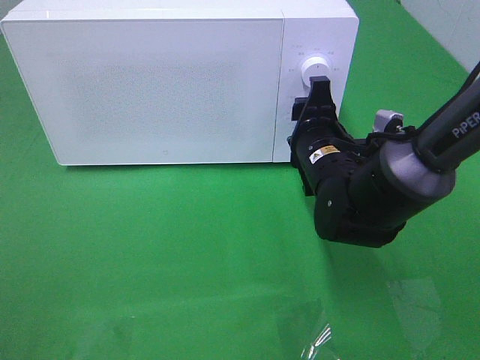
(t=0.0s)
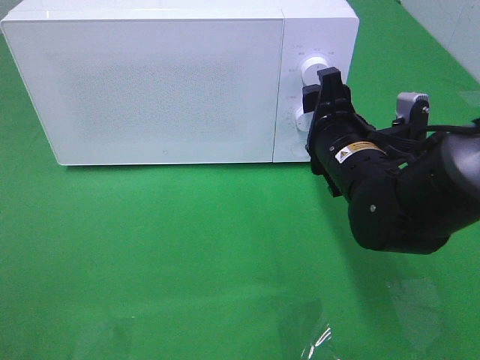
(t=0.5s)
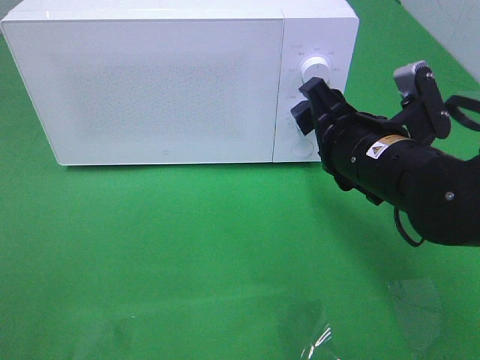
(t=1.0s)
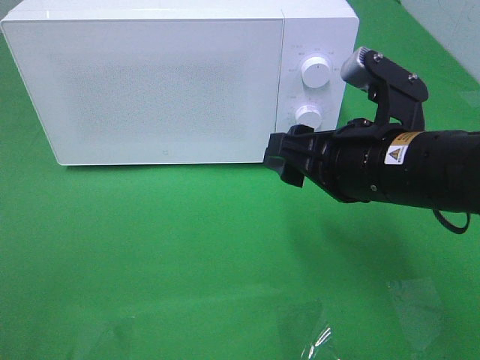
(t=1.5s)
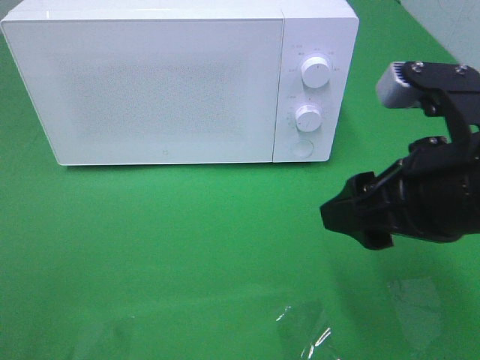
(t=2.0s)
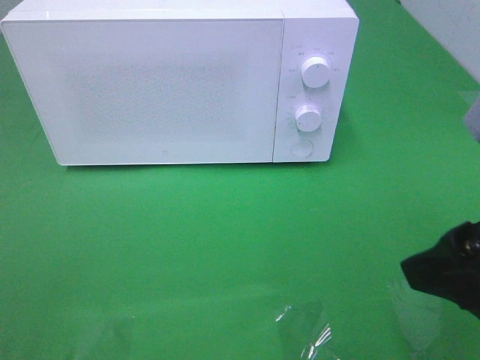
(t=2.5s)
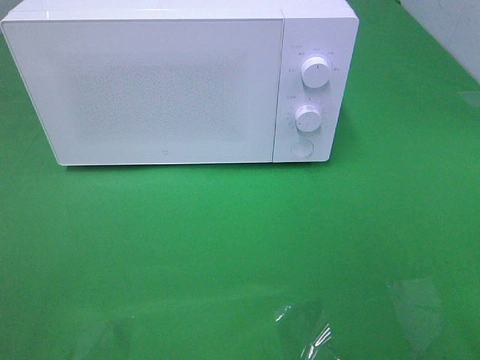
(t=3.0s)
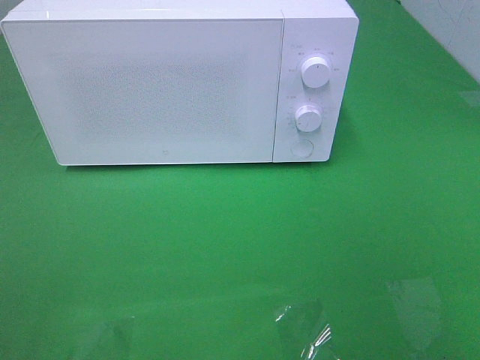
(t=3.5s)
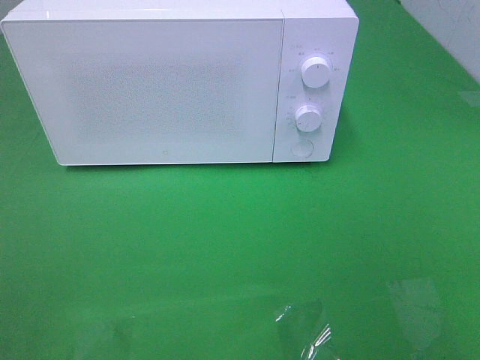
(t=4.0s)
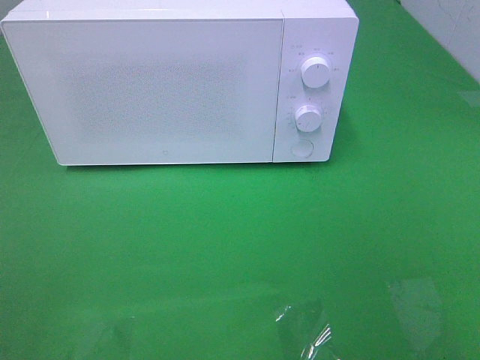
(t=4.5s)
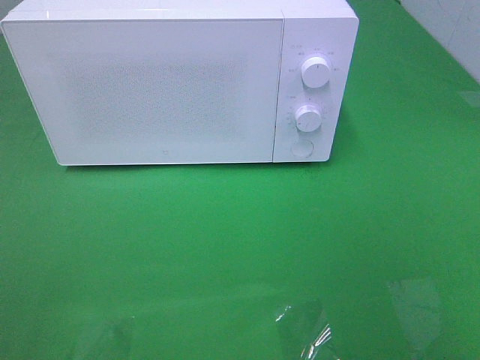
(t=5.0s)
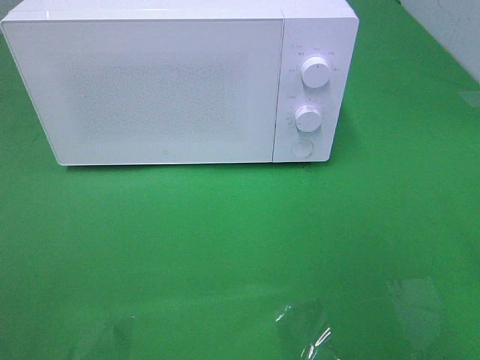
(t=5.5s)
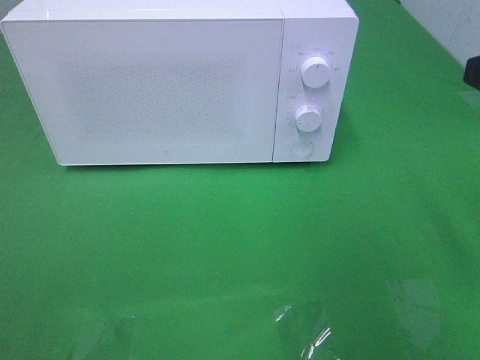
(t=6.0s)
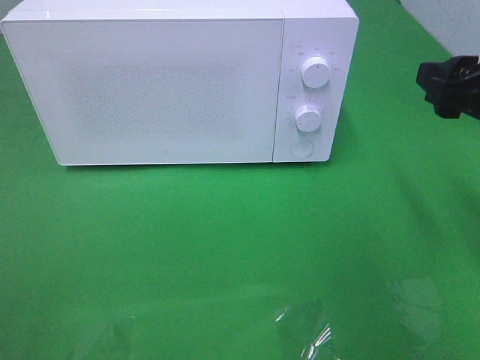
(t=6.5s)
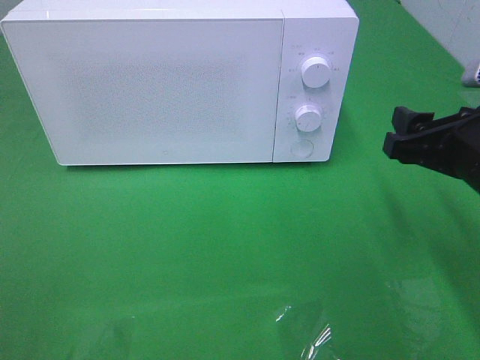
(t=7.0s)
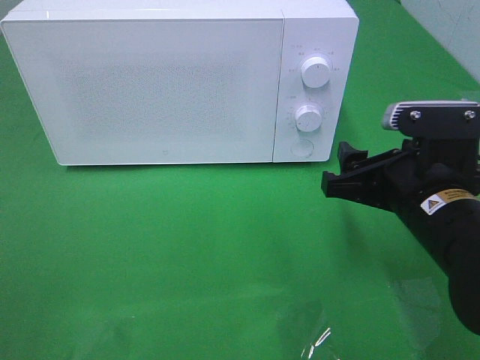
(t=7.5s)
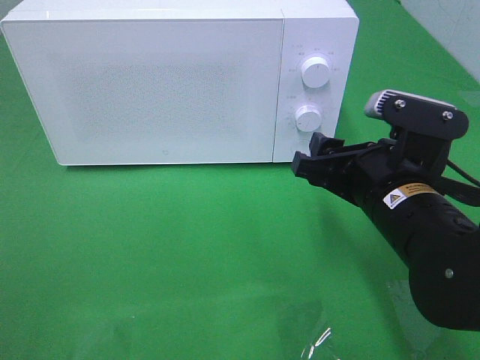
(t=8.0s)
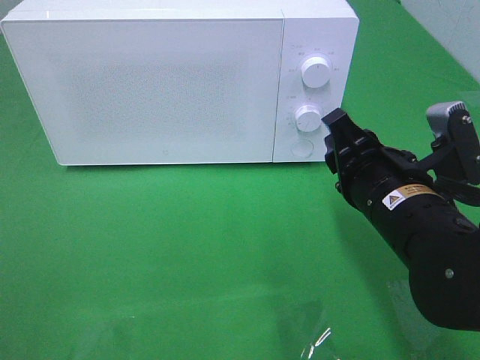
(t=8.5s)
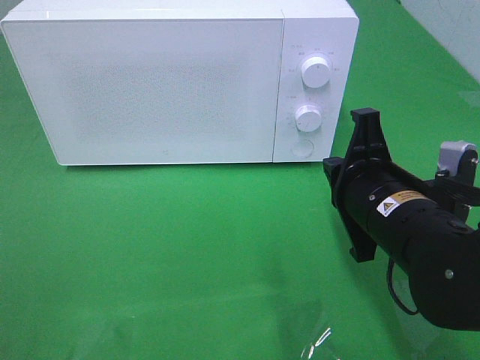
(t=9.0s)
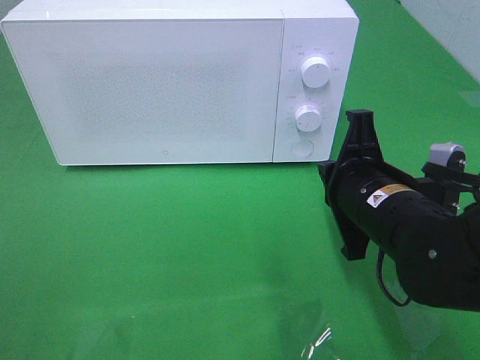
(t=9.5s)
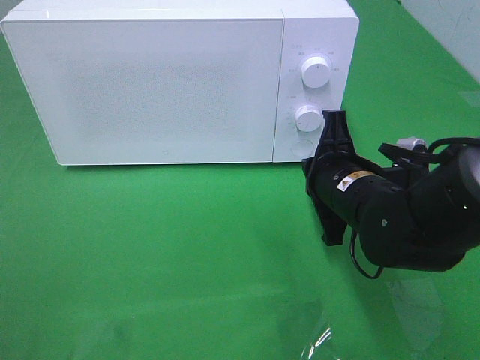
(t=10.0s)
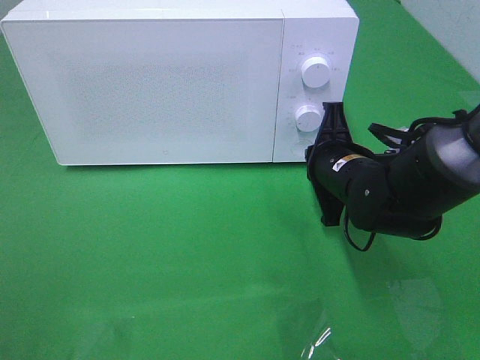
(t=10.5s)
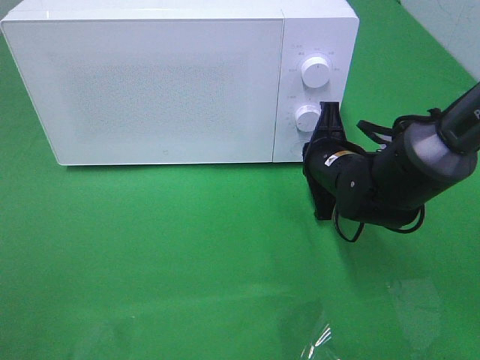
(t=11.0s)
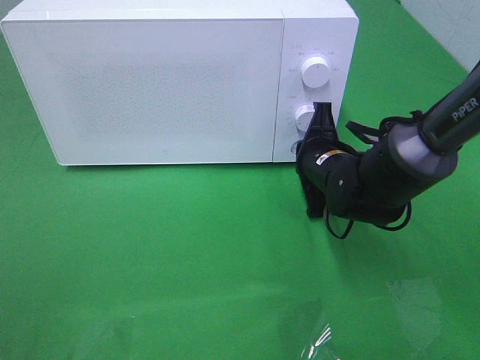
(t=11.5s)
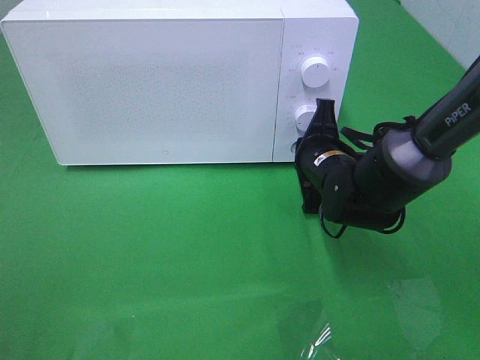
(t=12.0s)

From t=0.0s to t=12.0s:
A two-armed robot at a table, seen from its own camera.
Task of the whole recording: Heat the burger.
From t=0.0s to t=2.0s: The right gripper is displaced backward and upward by some 20 cm.
From t=2.0s to t=4.0s: The right gripper travels backward and to the right by about 20 cm.
From t=6.0s to t=8.0s: The right gripper goes roughly 20 cm downward and to the left.
From t=8.0s to t=10.0s: The right gripper moves forward, approximately 5 cm, and closes.
From t=10.0s to t=12.0s: The right gripper shifts roughly 5 cm forward.

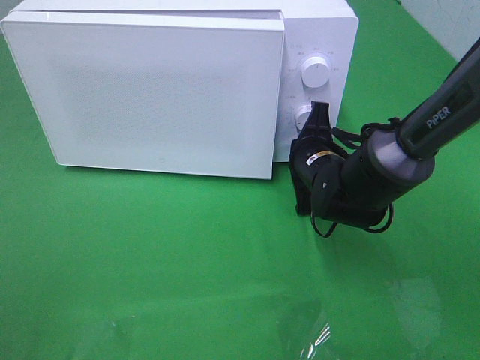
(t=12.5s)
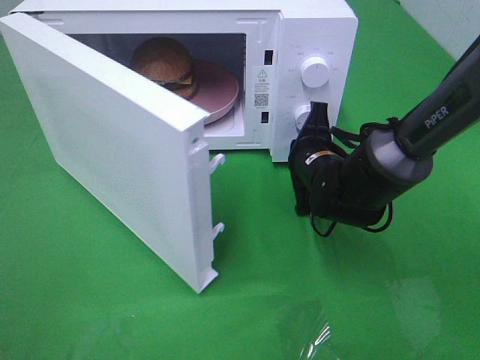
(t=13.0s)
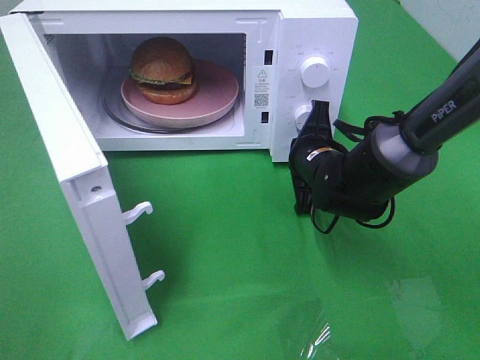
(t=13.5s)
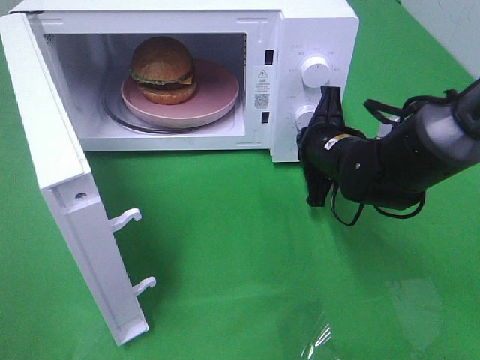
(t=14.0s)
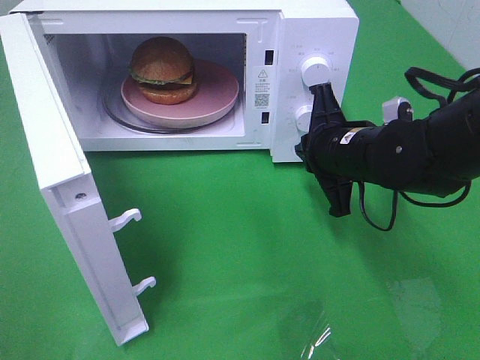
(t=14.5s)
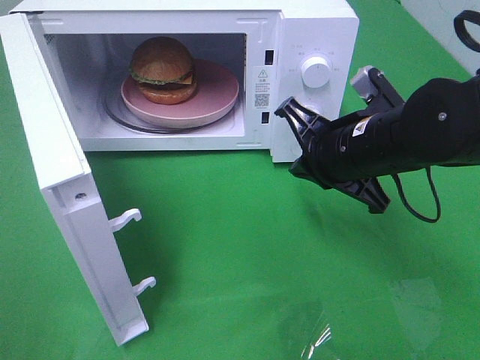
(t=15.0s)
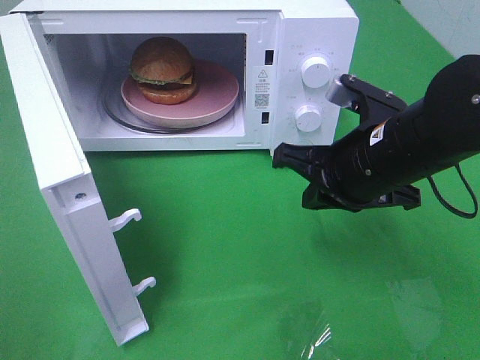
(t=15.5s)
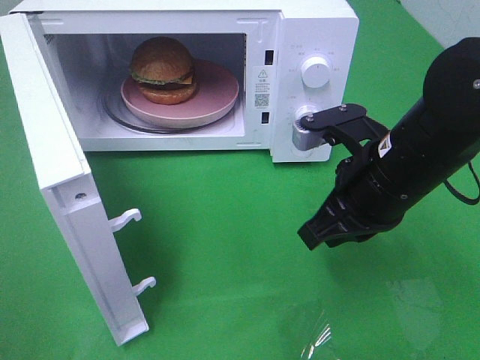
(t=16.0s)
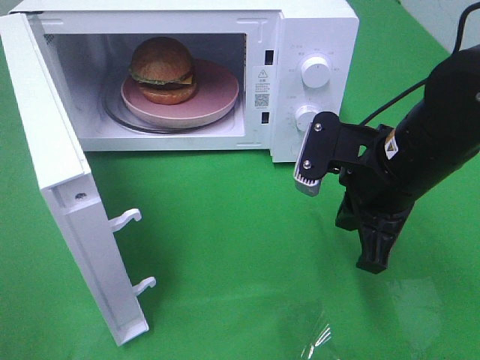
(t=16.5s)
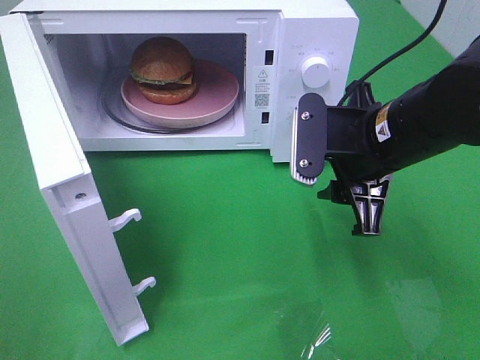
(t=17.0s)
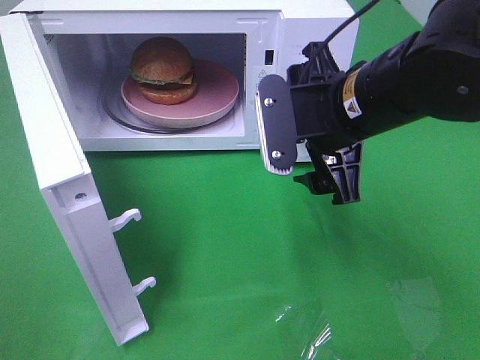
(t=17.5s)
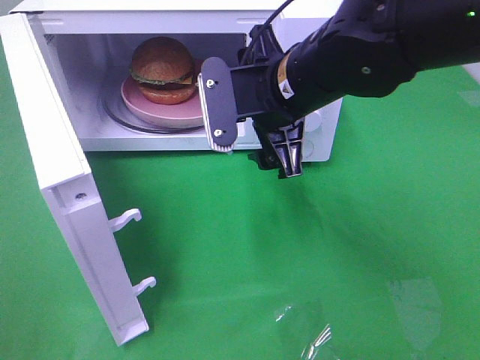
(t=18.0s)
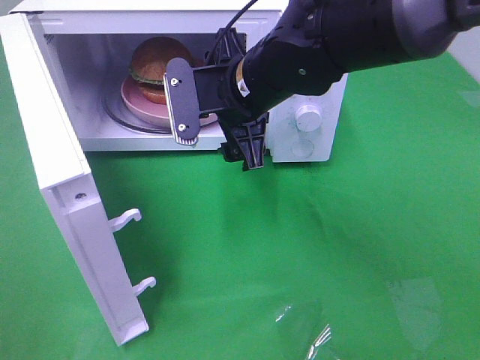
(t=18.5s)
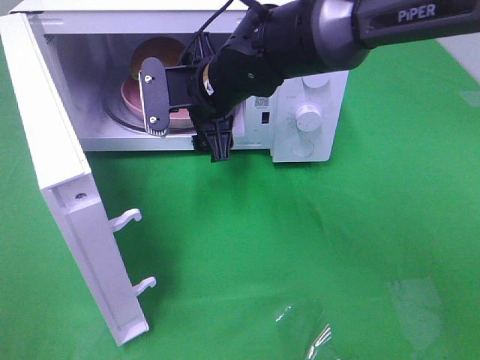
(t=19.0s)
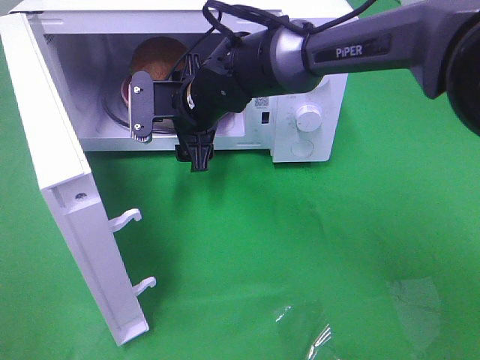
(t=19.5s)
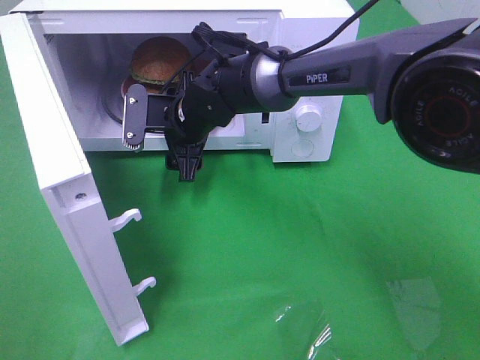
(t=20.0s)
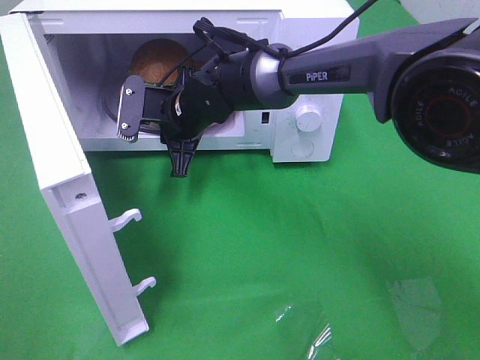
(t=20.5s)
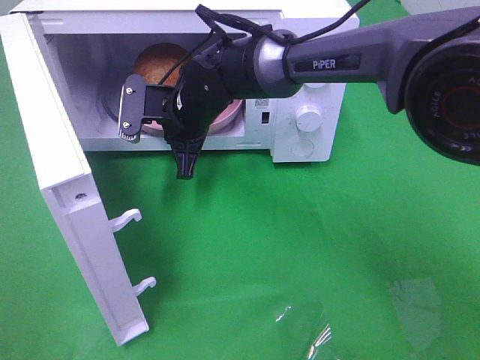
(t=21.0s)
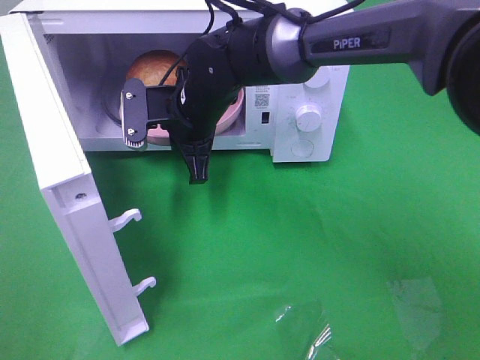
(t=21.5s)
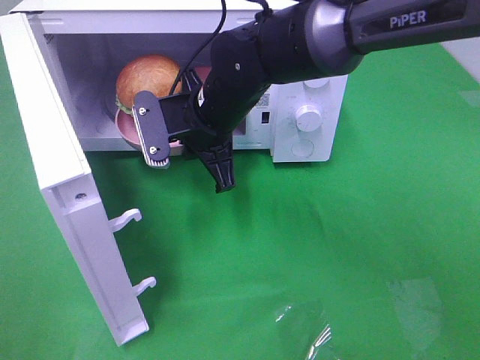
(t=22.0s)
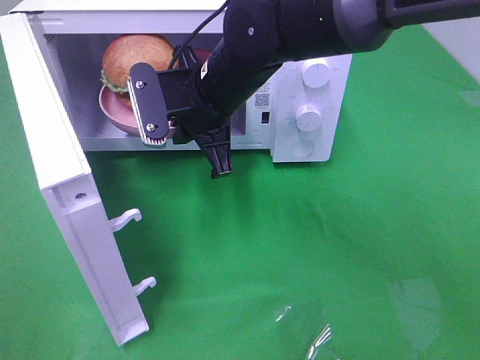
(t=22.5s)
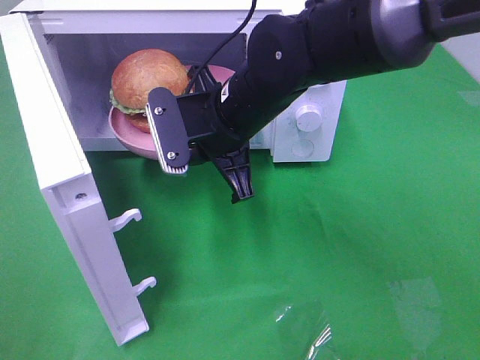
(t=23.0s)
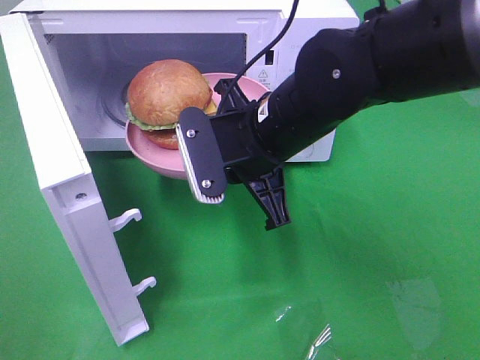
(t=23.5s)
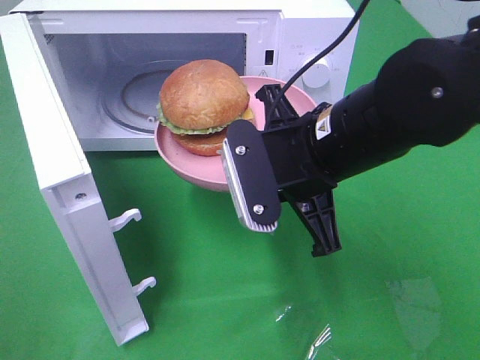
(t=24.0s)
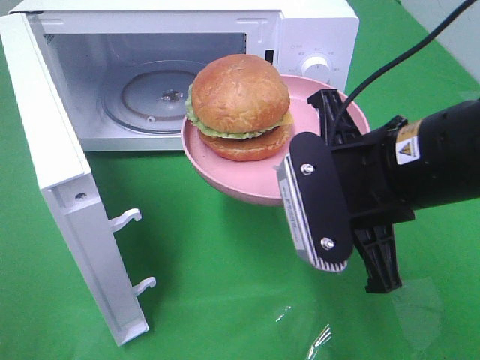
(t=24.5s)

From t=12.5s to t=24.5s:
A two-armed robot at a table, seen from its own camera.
Task of the whole recording: Heat the burger.
Step, from t=14.5s to t=20.5s: Right hand: grab the plate with the hamburger.
From t=12.5s to t=14.5s: The right gripper shifts about 5 cm upward.
From t=14.5s to t=16.5s: The right gripper moves backward, roughly 5 cm.
From t=16.5s to t=18.5s: The right gripper heads to the left and forward, covering some 15 cm, and opens up.
From t=18.5s to t=20.5s: The right gripper moves downward, forward and to the left, roughly 15 cm, and closes up.
From t=20.5s to t=22.5s: The right gripper moves upward and backward, some 10 cm.
From t=22.5s to t=24.5s: The right gripper goes about 20 cm backward and to the right.

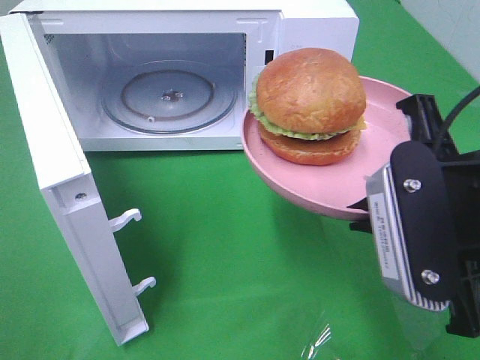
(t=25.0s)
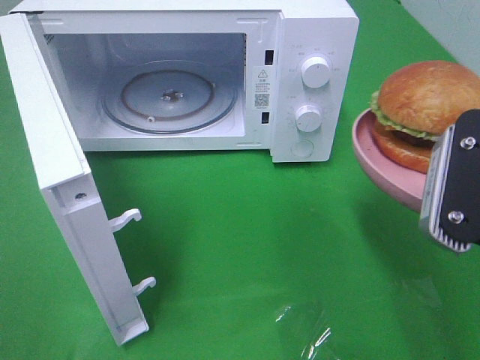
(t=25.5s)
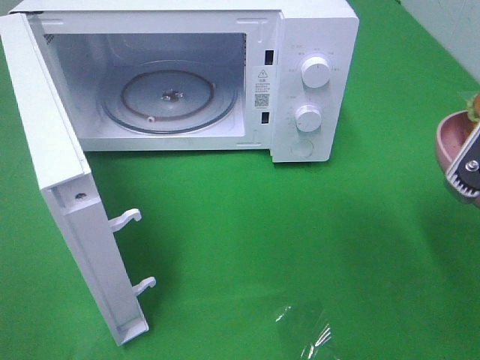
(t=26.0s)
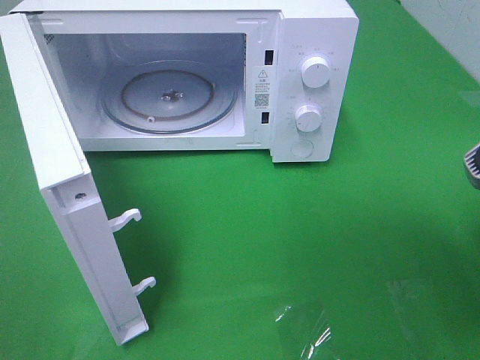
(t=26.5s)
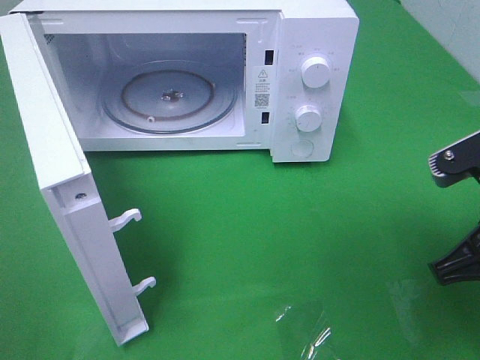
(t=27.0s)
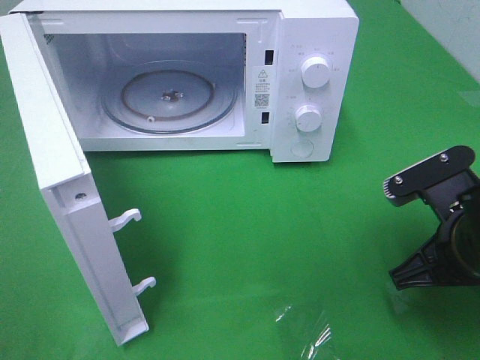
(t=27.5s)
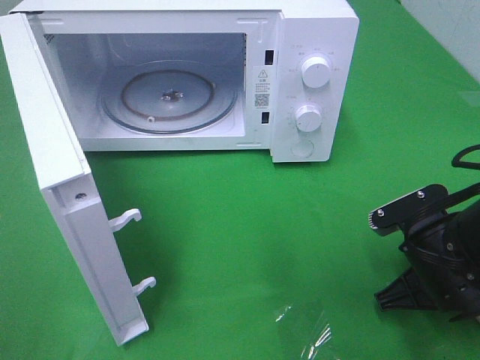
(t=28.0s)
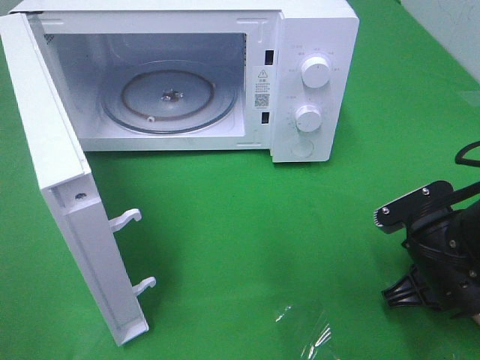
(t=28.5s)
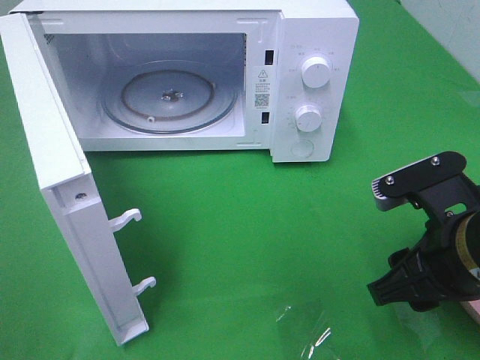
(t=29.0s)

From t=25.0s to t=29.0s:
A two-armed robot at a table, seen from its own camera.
Task of the whole recording: Heat the burger.
Step, from t=25.0s to t=29.0s: Right hand: place the plate on the table.
From t=25.0s to t=27.0s: The right gripper goes approximately 10 cm downward and to the right.
From t=27.0s to t=29.0s: The right gripper moves some 10 cm downward and comes back, and opens.
